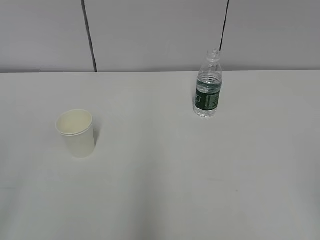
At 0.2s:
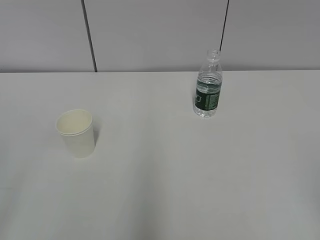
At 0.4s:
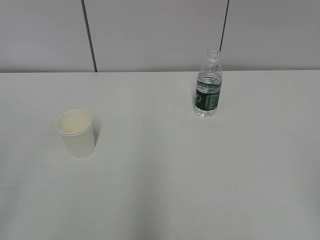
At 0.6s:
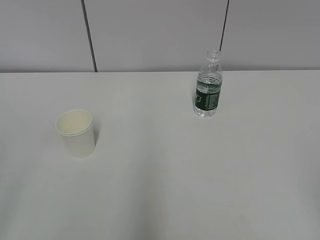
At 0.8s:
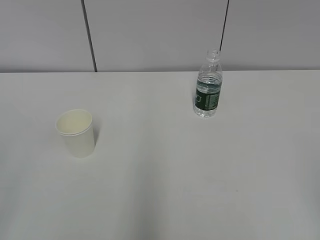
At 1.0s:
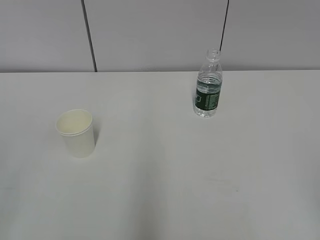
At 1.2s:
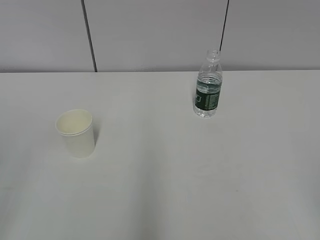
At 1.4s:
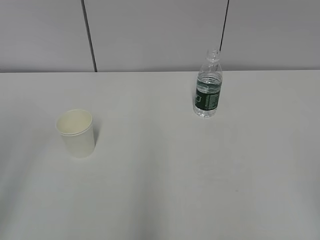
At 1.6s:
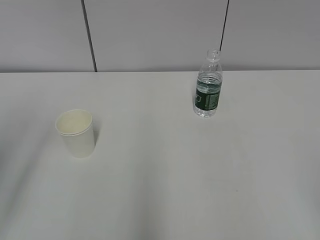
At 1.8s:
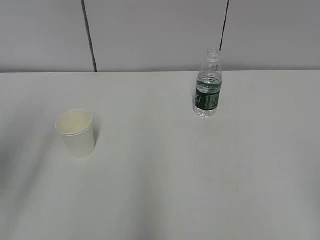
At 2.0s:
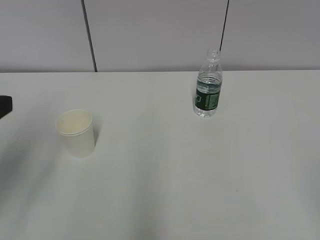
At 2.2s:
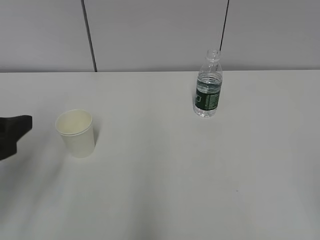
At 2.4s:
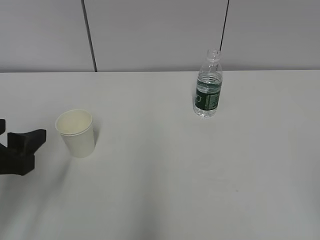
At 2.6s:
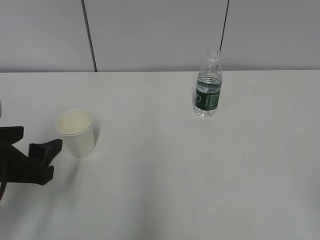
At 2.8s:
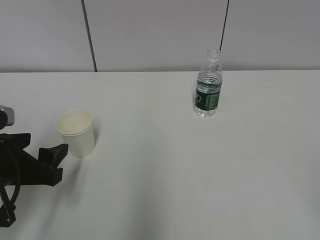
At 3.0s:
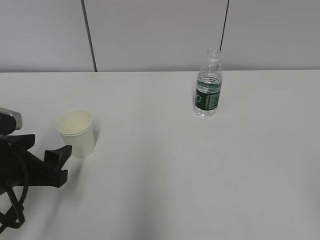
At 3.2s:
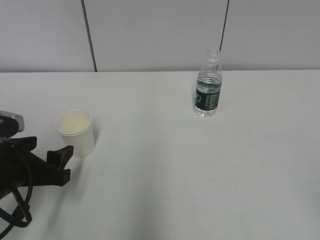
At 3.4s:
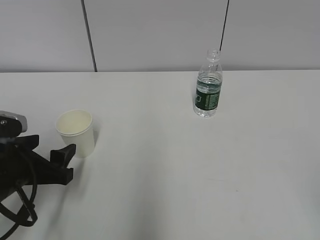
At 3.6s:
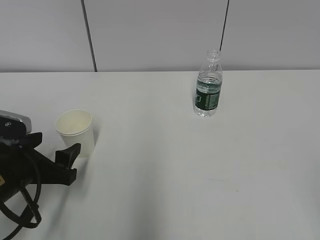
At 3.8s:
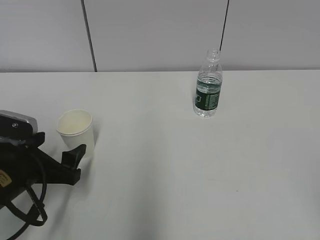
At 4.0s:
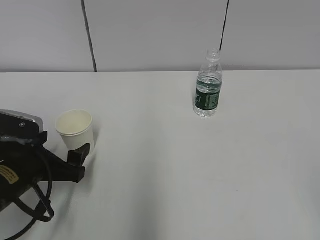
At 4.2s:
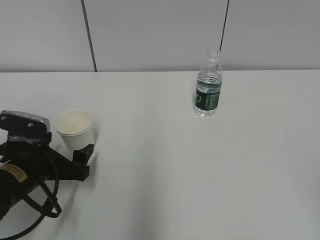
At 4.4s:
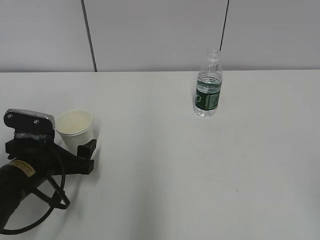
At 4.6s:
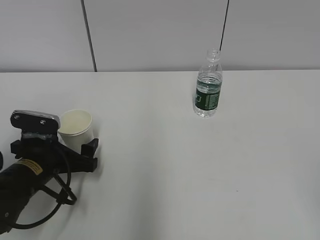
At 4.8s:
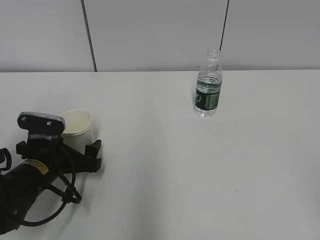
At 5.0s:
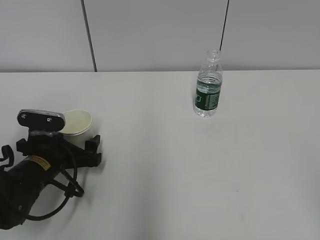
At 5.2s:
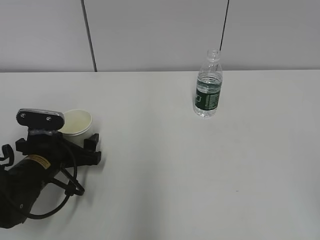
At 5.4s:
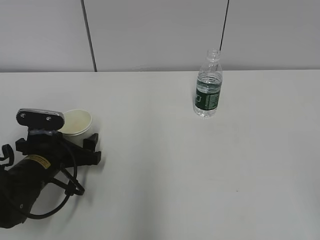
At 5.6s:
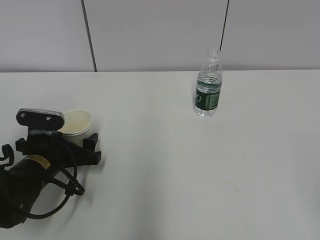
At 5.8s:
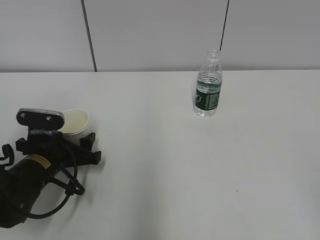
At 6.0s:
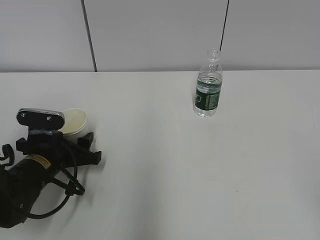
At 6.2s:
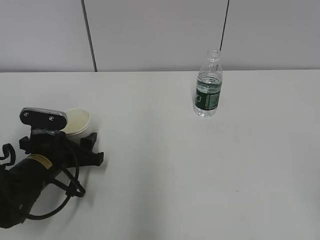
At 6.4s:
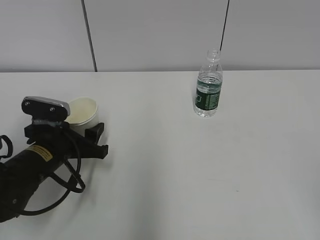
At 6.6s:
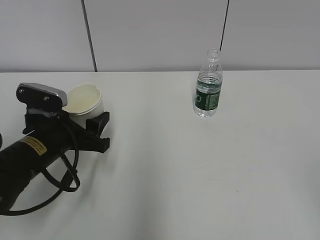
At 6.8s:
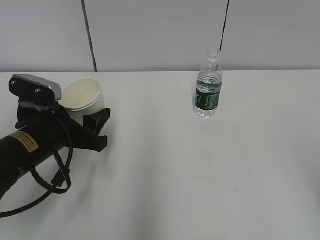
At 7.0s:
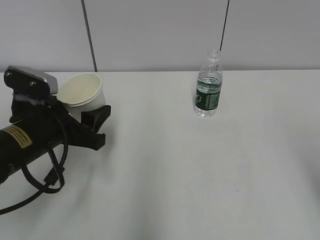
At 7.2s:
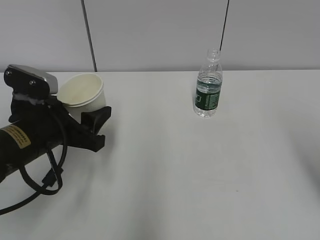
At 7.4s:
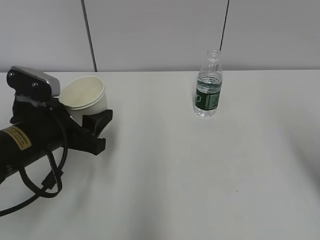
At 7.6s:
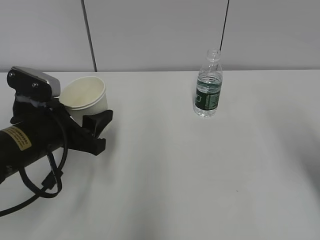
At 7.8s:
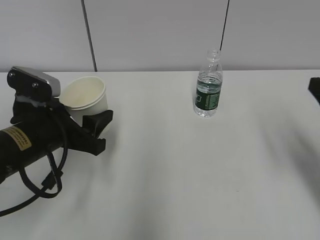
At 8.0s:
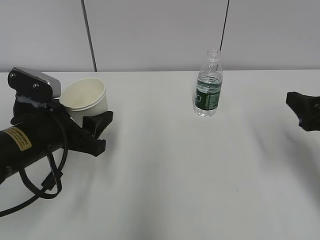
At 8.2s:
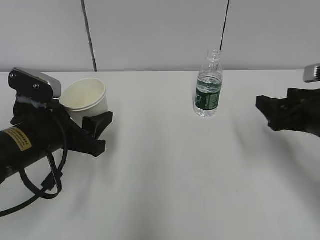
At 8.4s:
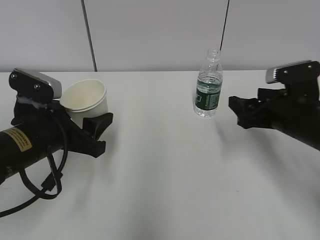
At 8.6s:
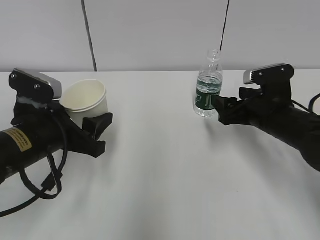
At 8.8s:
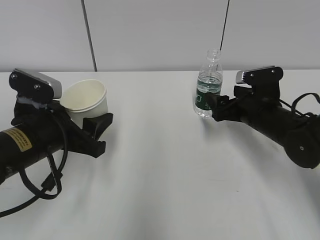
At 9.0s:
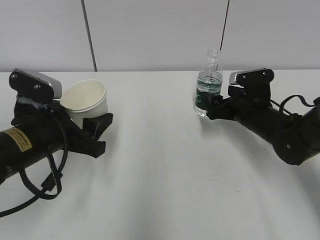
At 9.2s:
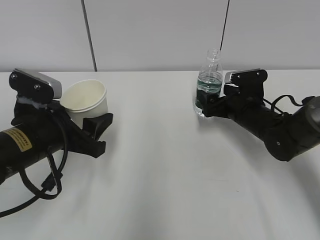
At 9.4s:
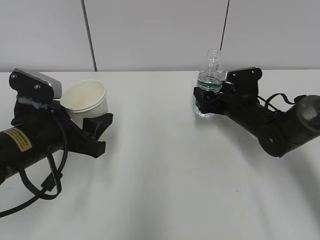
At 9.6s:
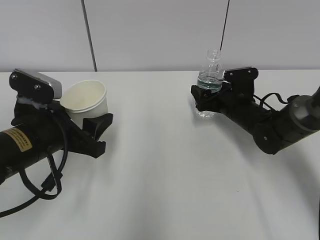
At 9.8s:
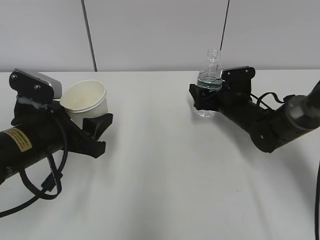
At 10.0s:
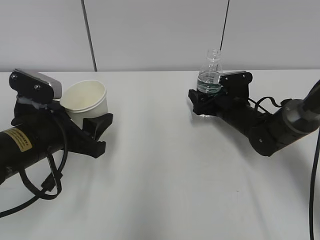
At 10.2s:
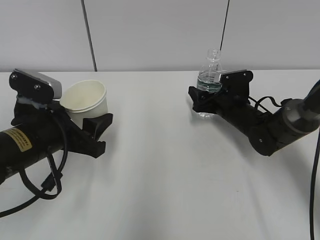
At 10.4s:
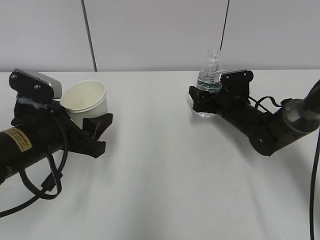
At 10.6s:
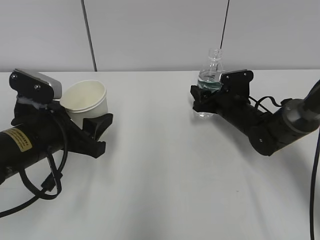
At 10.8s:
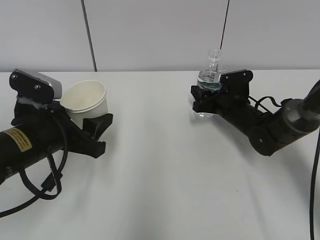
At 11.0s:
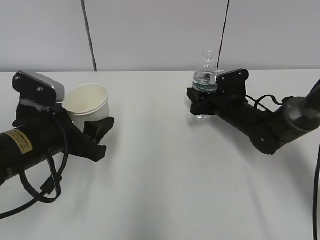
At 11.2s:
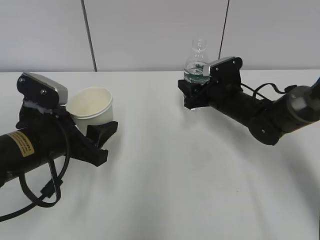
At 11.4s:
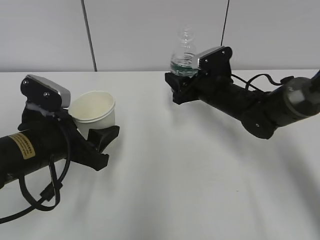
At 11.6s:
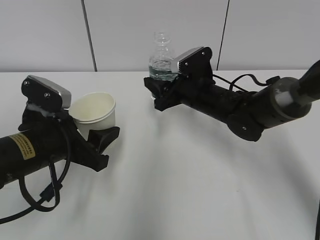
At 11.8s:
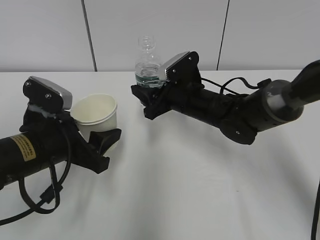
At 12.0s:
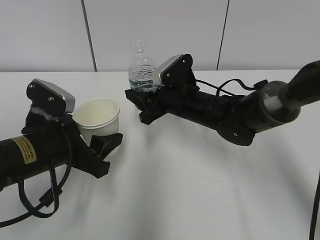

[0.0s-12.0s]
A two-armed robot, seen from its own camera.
Step, 0.0s to 4.8s: Grab the paper cup with the left hand.
Step, 5.0s to 8.8s: Grab the water bottle with the right hand.
1.6s to 3.0s: The left gripper moves downward, forward and to the right, roughly 20 cm.
3.0s to 4.4s: The left gripper ends up about 5 cm from where it was, and opens its fingers.
4.4s to 6.0s: The left gripper closes up.
6.0s to 7.6s: The left gripper heads upward, covering roughly 10 cm. The right gripper travels forward by roughly 20 cm.
7.6s to 9.0s: The right gripper shifts roughly 25 cm forward, downward and to the left, and opens its fingers.
9.0s to 10.4s: The right gripper goes approximately 5 cm forward, and closes up.
10.4s to 12.0s: The right gripper is displaced to the left and upward by approximately 15 cm, and closes.

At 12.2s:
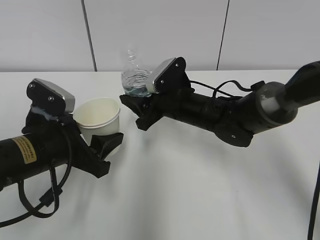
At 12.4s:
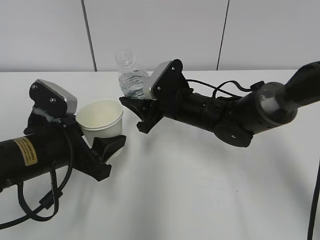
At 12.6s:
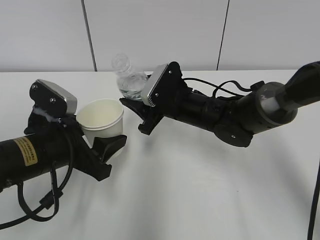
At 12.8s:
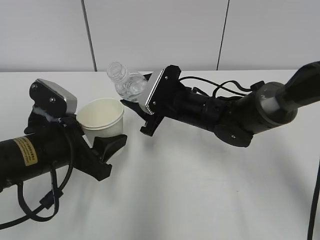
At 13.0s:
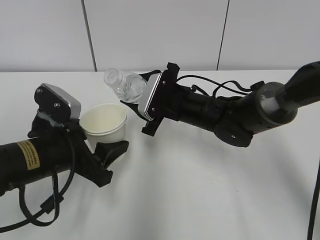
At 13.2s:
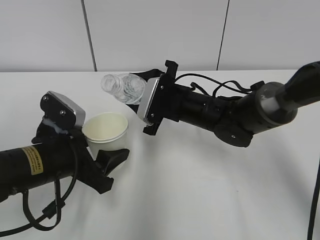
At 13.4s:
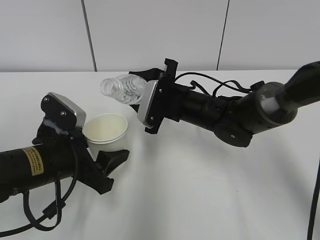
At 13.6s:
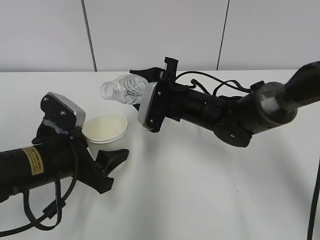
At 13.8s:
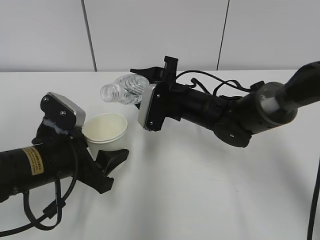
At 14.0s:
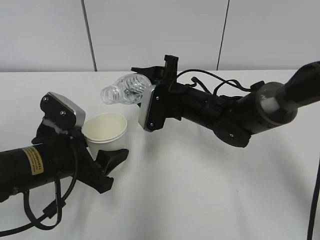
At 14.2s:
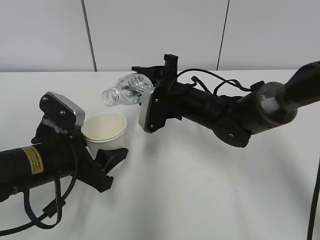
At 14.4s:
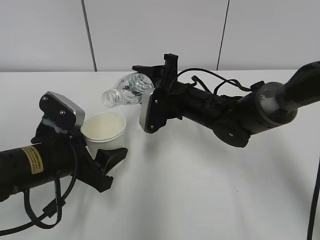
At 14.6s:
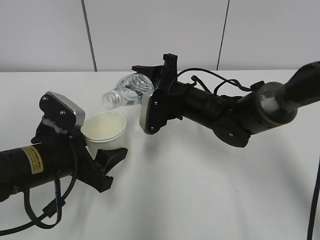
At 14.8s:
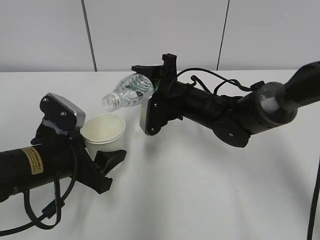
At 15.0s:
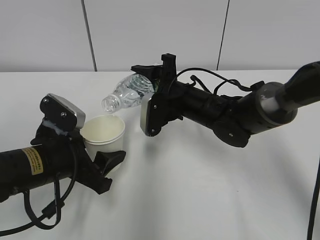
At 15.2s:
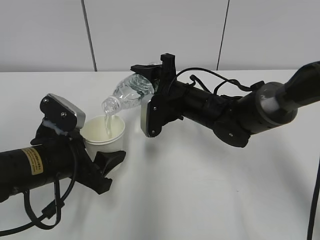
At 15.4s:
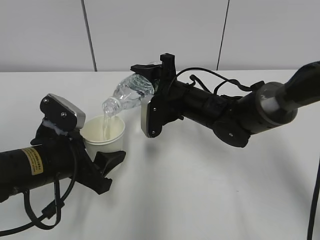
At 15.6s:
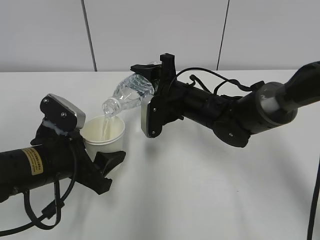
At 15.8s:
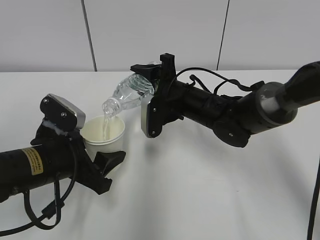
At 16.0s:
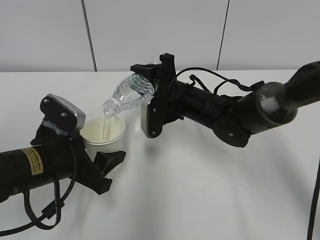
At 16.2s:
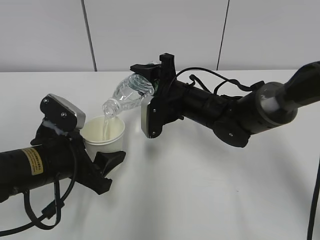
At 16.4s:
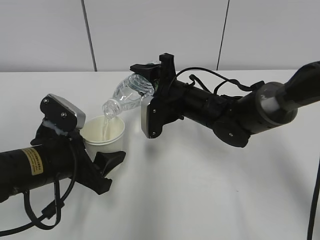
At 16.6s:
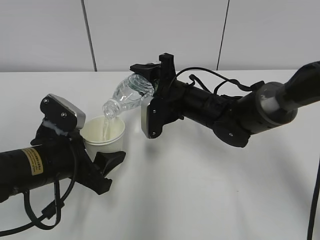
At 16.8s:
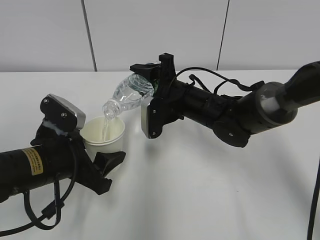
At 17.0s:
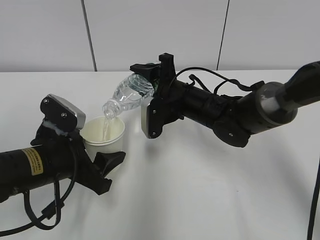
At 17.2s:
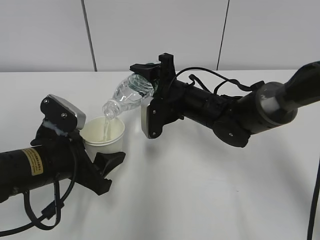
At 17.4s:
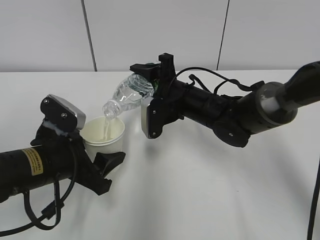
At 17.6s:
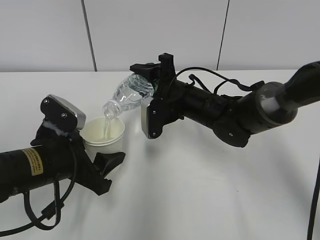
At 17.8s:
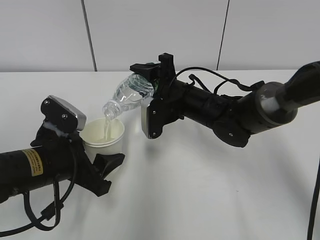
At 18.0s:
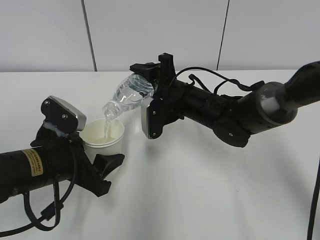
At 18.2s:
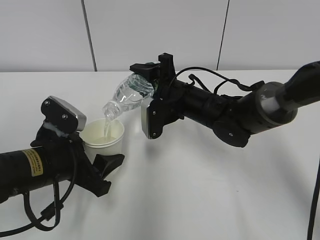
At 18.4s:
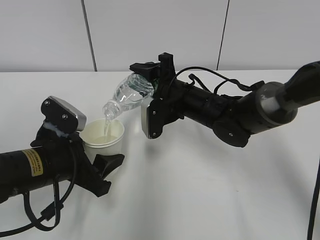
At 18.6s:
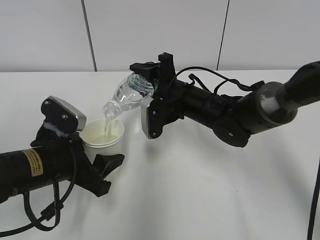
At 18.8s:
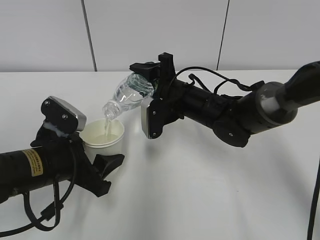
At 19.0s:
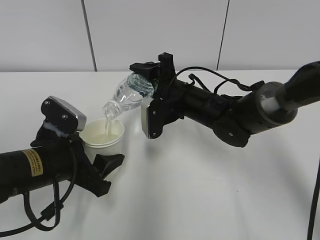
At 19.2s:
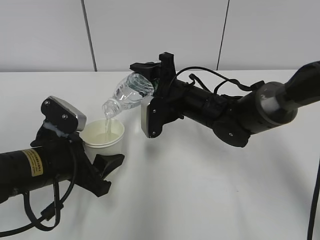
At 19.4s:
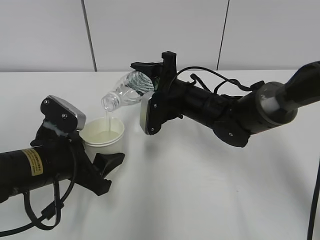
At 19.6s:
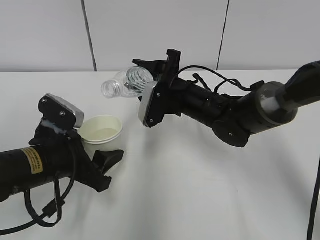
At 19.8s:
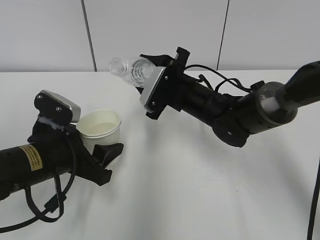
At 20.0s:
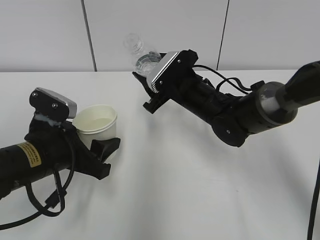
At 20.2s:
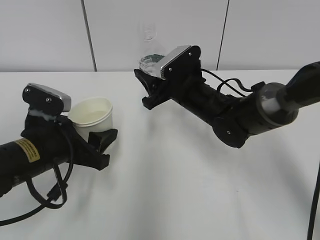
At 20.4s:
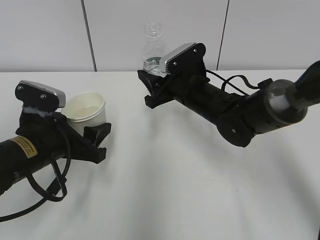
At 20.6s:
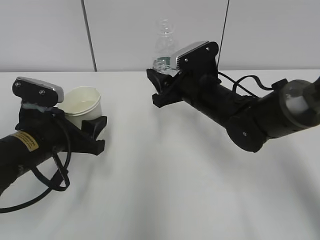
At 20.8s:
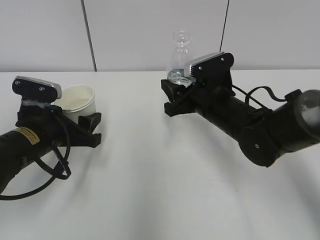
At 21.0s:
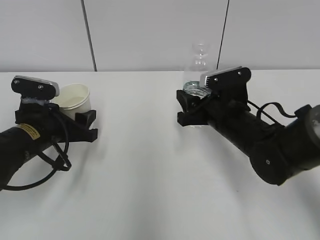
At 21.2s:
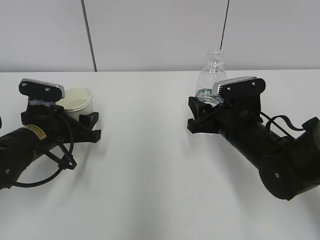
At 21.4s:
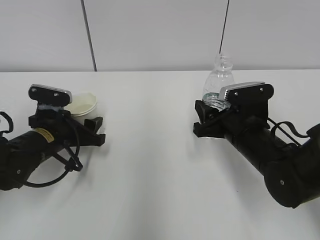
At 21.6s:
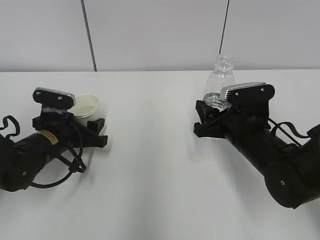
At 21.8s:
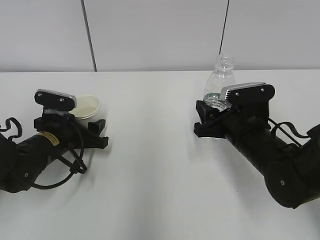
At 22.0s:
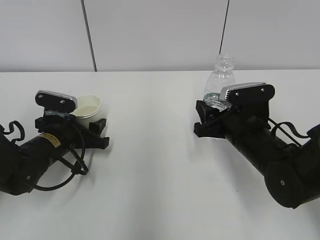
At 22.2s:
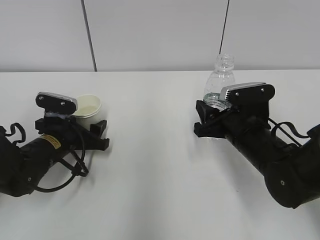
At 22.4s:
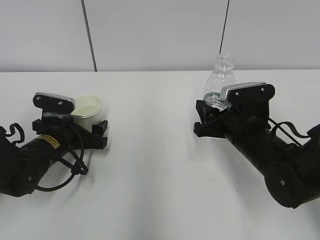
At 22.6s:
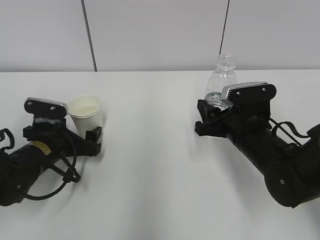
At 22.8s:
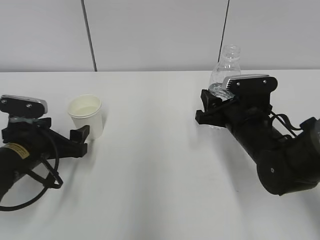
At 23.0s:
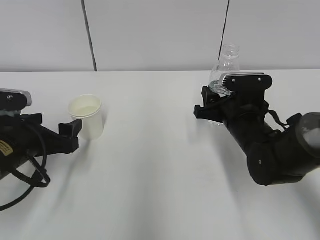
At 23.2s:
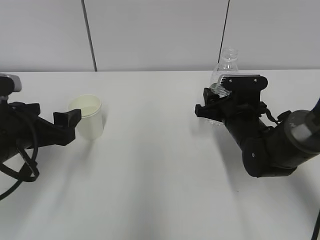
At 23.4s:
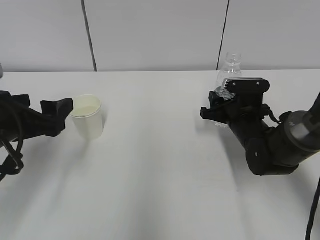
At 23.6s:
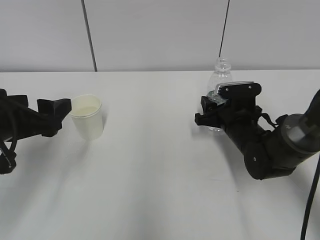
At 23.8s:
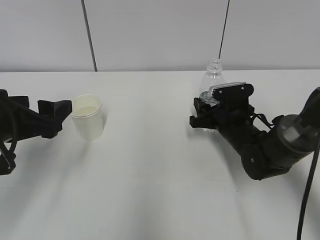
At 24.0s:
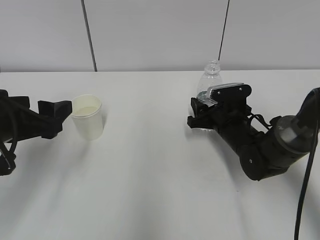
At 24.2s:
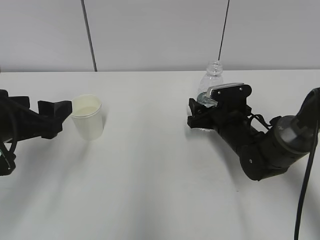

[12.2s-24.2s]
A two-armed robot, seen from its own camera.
Step, 12.4s to 16.2s: Fill water with the left hand.
Step, 12.4s to 16.2s: Pour water with the right hand.
Step, 17.2s to 18.4s: Place the paper cup with the left hand.
Step, 18.6s to 20.0s: Place the water bottle with the right hand.
13.8s to 15.2s: There are only small adjustments of the grippers.
15.2s to 16.6s: Both grippers stay about where they are.
16.6s to 18.2s: The two grippers keep their place.
19.8s to 21.2s: The left gripper shifts approximately 5 cm forward. Meanwhile the right gripper moves backward and to the right, about 10 cm.
21.2s to 22.6s: The left gripper opens.
22.6s to 24.2s: The right gripper goes roughly 5 cm forward, and opens its fingers. The left gripper is displaced upward and backward by about 15 cm.
